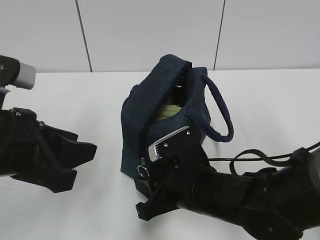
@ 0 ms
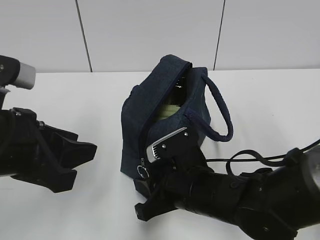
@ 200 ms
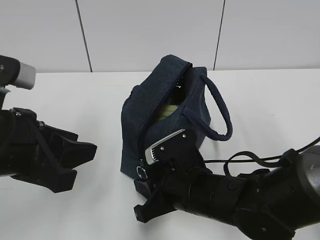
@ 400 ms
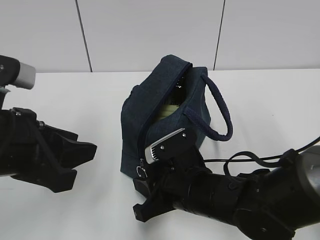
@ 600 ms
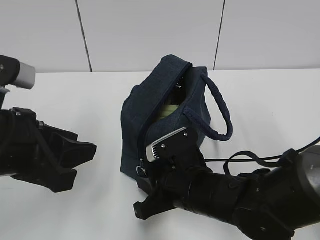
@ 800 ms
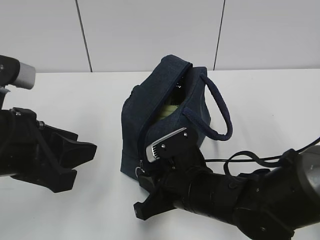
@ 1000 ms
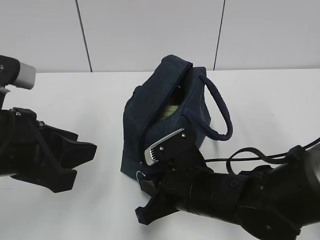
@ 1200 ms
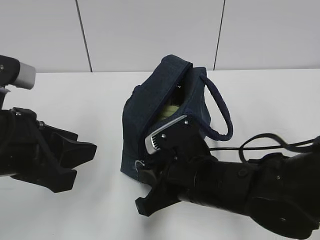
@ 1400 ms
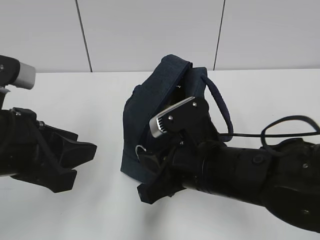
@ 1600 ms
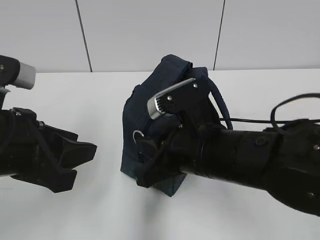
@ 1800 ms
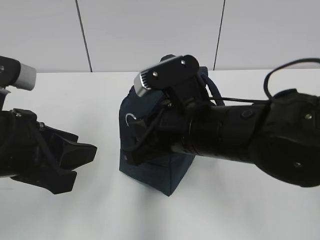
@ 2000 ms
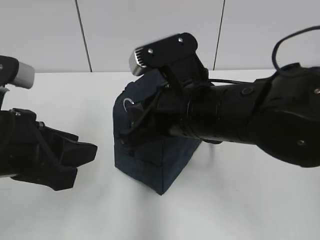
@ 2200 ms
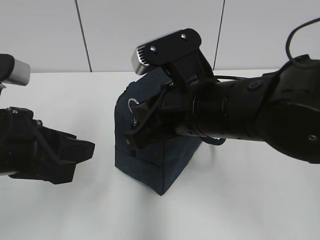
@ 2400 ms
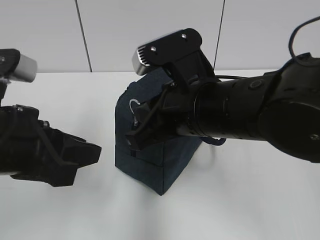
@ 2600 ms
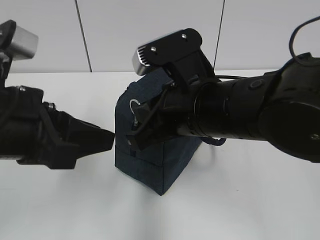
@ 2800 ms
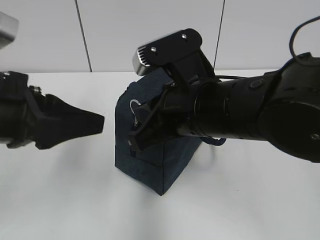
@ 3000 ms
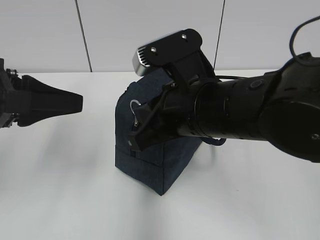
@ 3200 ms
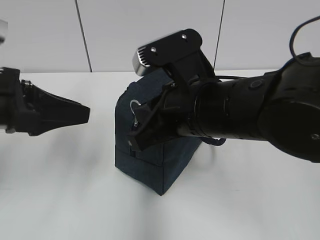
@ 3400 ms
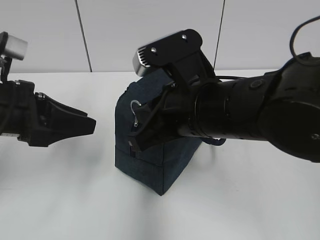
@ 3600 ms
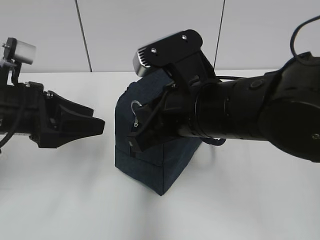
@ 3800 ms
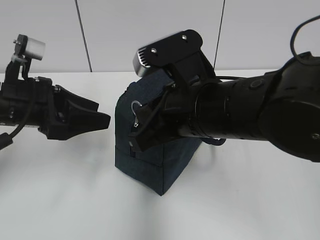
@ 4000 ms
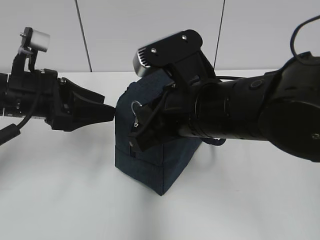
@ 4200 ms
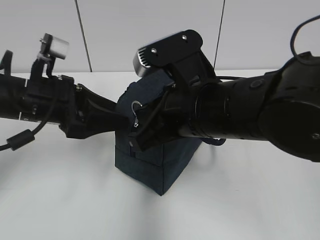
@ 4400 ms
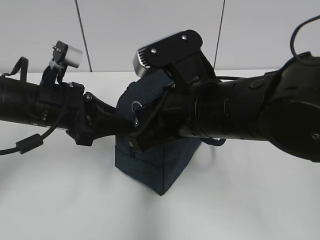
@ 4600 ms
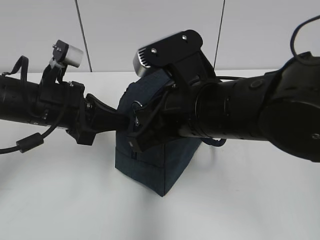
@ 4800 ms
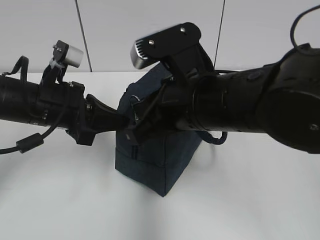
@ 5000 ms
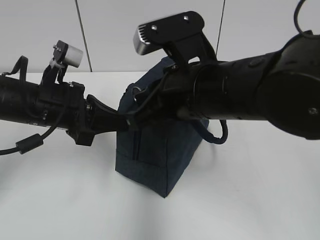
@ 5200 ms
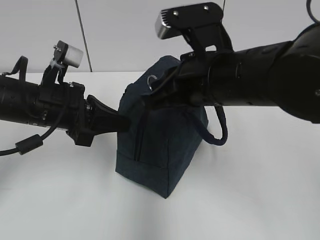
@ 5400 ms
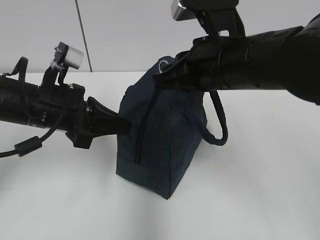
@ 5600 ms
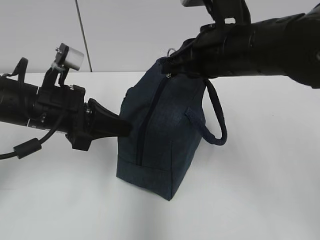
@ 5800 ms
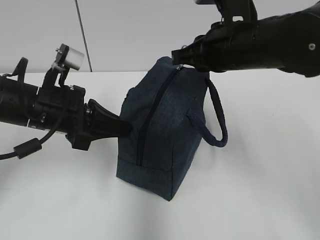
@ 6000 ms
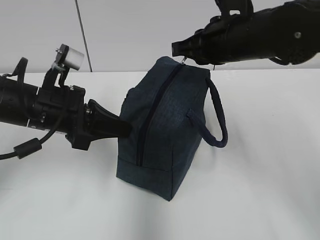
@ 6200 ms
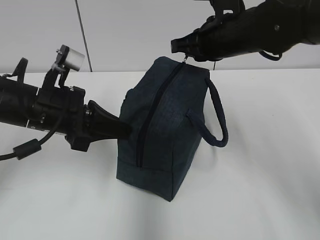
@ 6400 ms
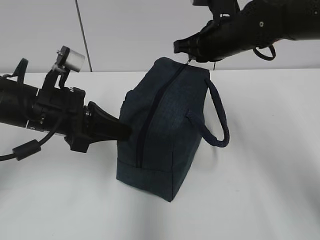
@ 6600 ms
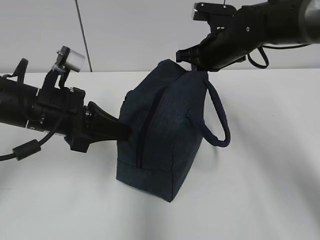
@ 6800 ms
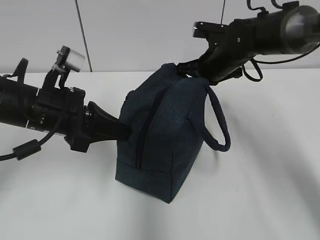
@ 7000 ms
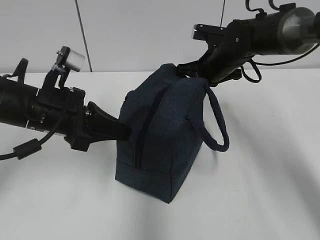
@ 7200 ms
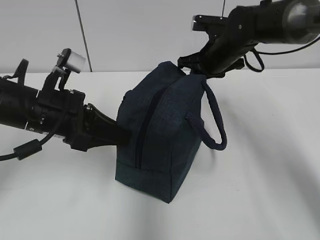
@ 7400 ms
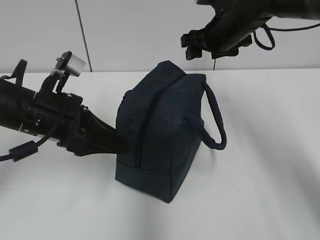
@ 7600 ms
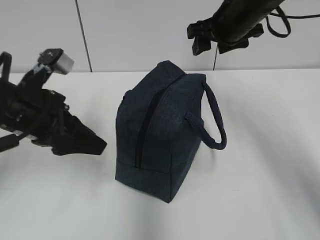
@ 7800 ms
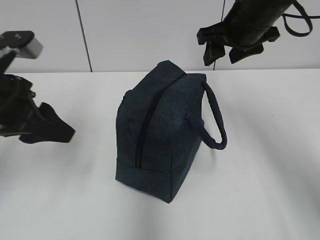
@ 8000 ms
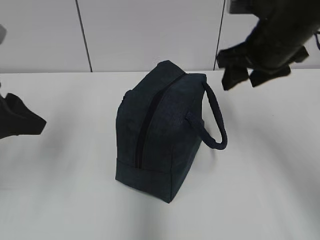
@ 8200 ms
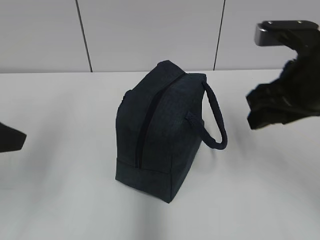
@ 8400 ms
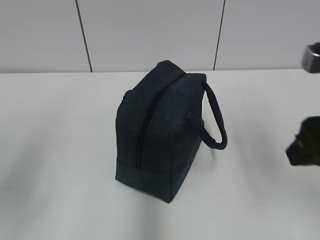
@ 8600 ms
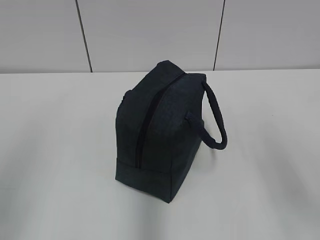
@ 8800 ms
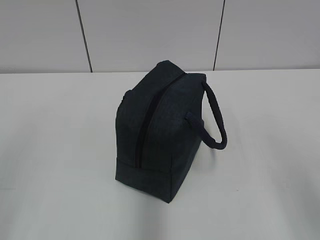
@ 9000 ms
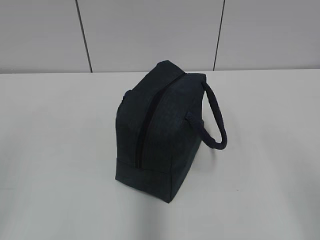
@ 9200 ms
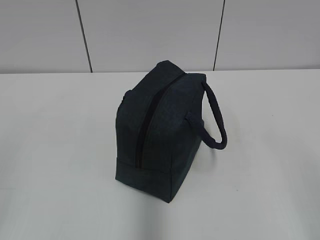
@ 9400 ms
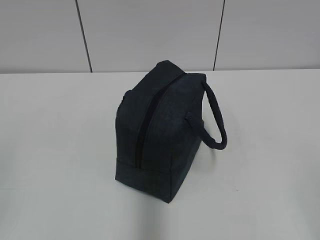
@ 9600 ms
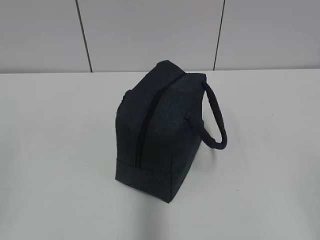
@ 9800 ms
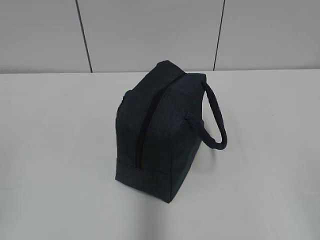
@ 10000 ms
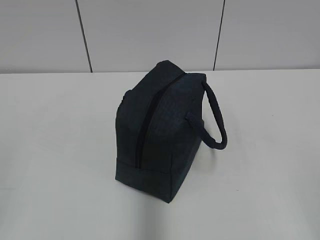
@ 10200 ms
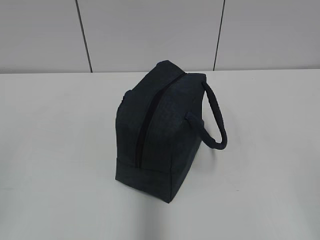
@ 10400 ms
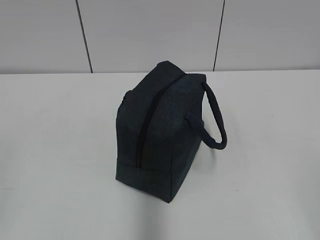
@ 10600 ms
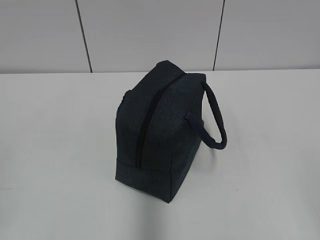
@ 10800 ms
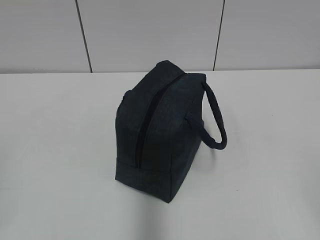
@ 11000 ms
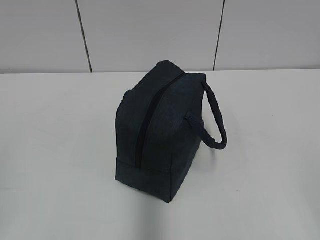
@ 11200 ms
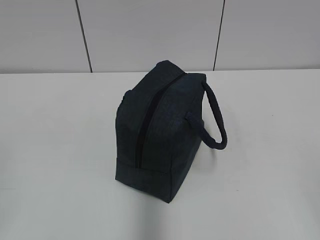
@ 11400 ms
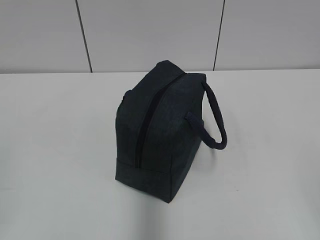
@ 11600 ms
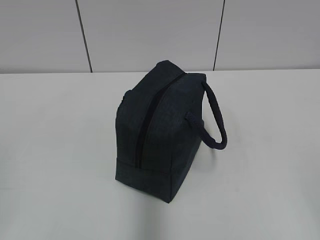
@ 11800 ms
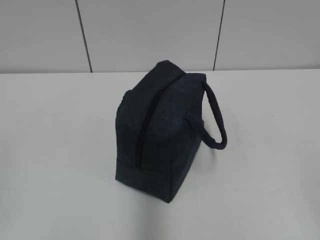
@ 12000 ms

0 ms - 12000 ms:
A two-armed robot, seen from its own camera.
0 ms - 1600 ms: The right gripper goes approximately 5 cm upward, and closes.
1600 ms - 3000 ms: The right gripper travels upward by roughly 10 cm.
3000 ms - 4400 ms: The left gripper is displaced forward and downward by about 10 cm, and opens.
4400 ms - 6000 ms: The left gripper closes up. The right gripper is displaced forward and to the right by some 10 cm.
6000 ms - 7600 ms: The left gripper opens. Meanwhile the right gripper shifts about 10 cm forward, and opens up.
7600 ms - 9000 ms: The right gripper heads backward, covering about 35 cm. Meanwhile the left gripper goes roughly 25 cm backward, to the left and upward.
